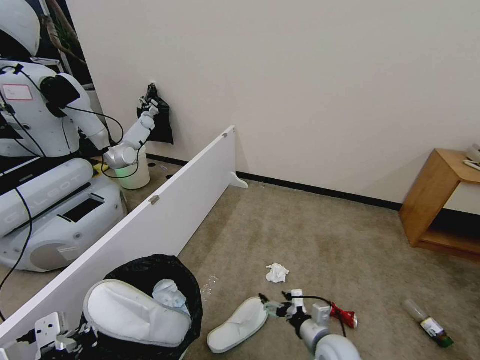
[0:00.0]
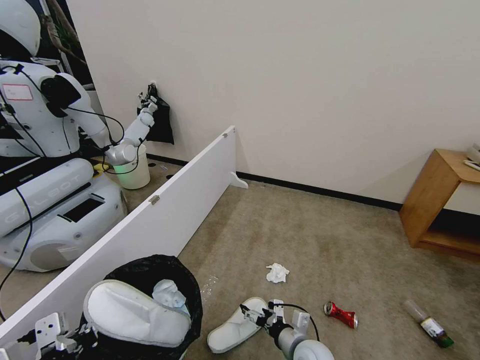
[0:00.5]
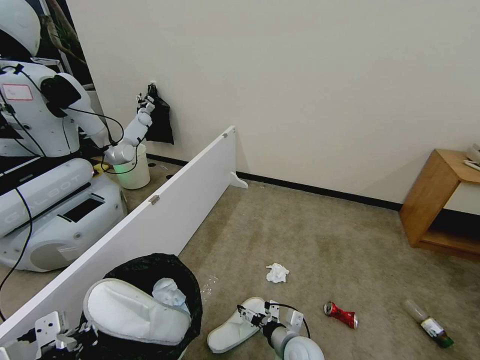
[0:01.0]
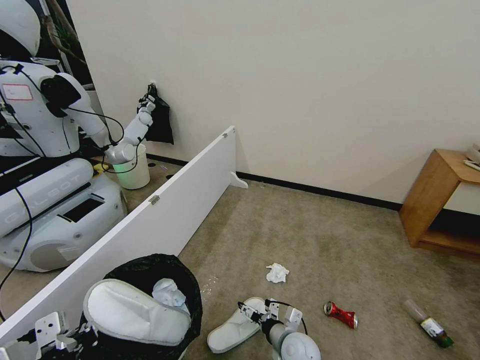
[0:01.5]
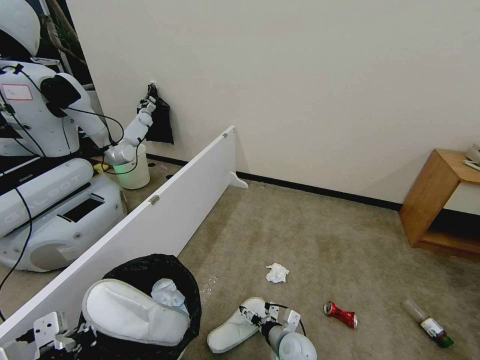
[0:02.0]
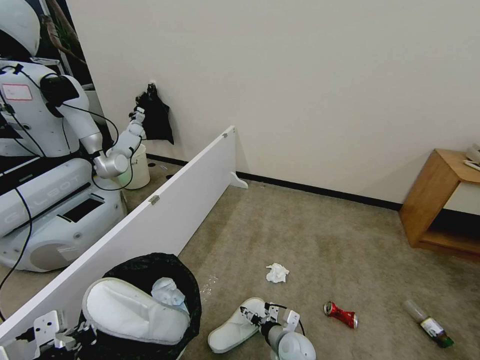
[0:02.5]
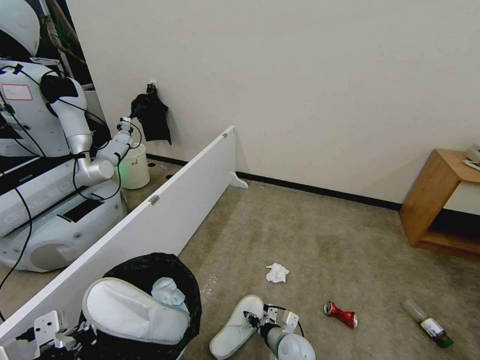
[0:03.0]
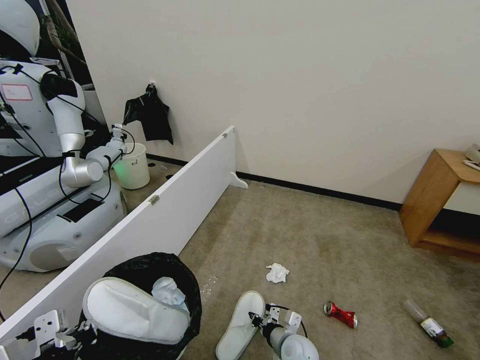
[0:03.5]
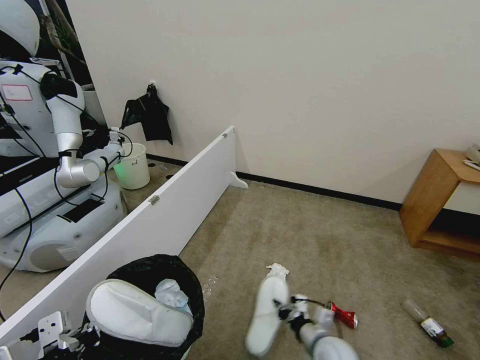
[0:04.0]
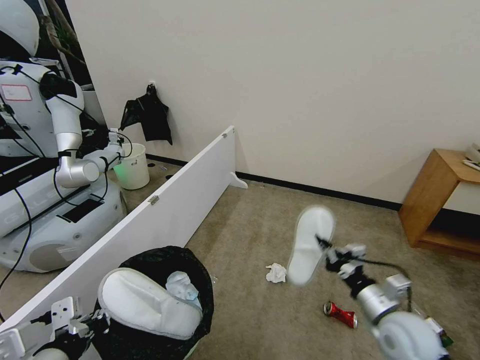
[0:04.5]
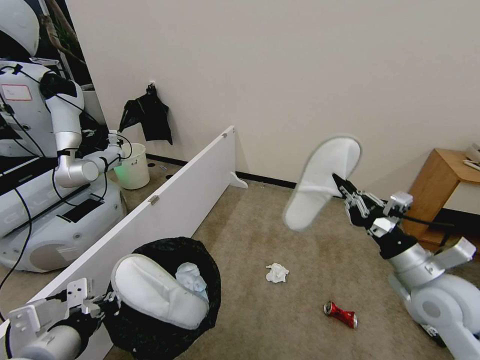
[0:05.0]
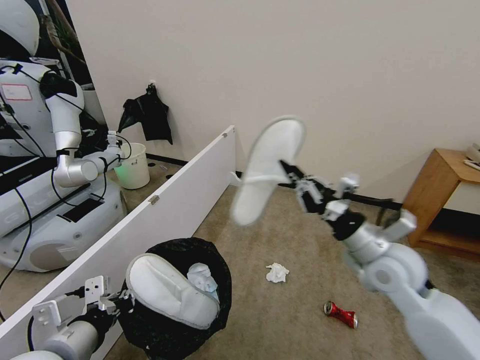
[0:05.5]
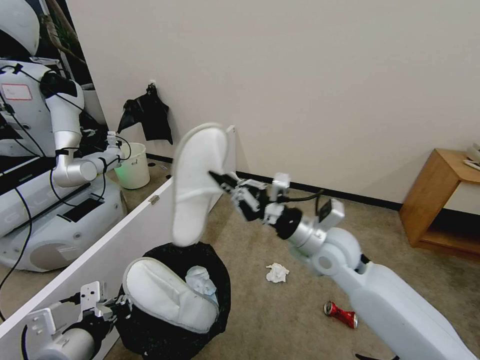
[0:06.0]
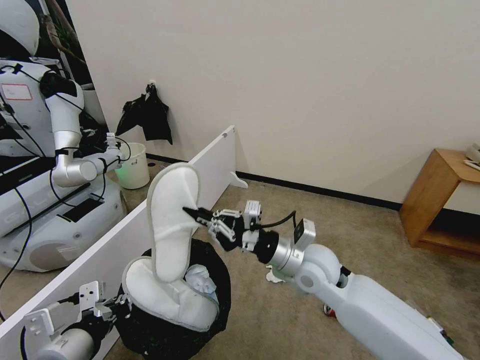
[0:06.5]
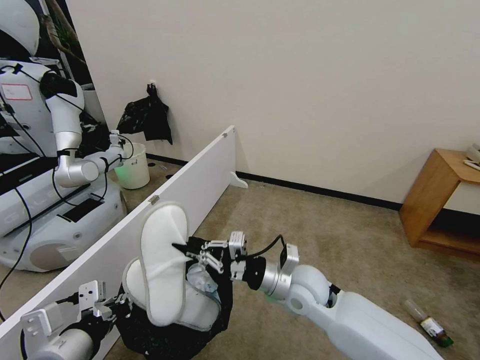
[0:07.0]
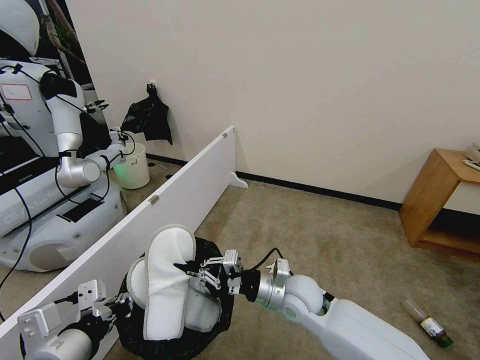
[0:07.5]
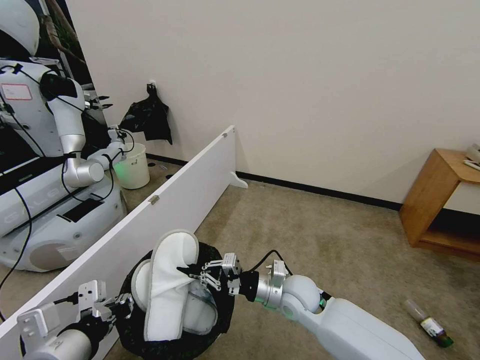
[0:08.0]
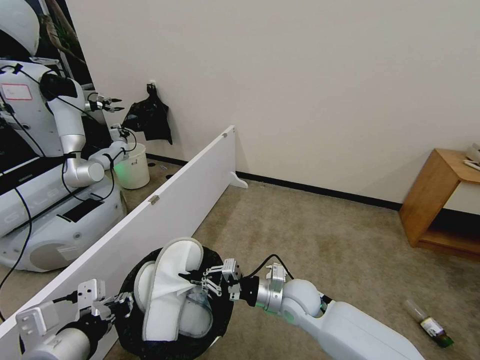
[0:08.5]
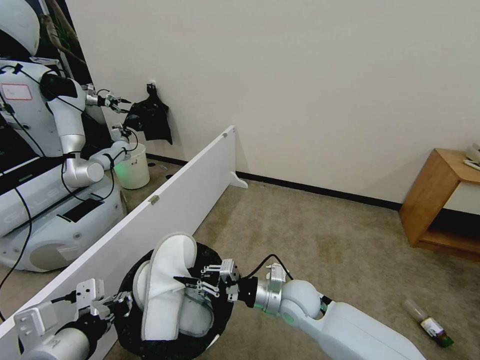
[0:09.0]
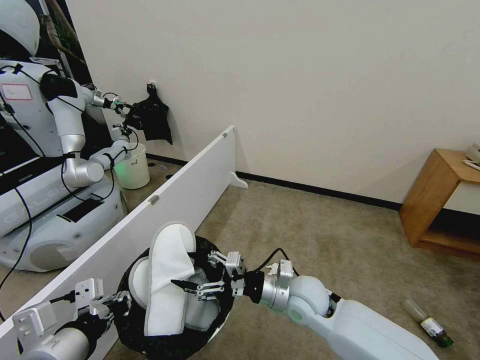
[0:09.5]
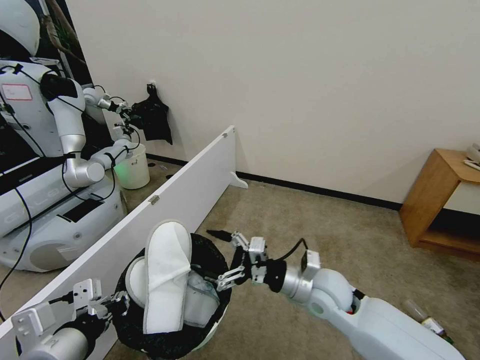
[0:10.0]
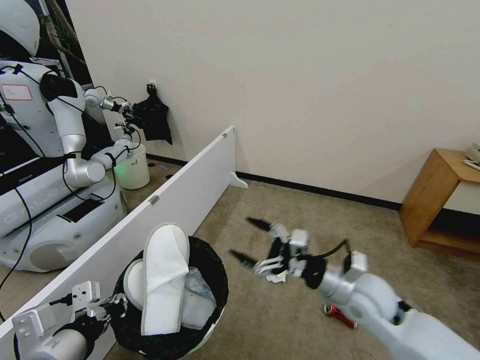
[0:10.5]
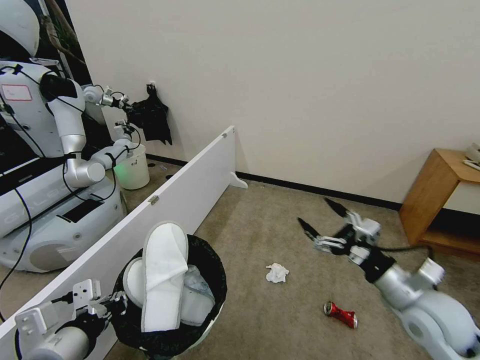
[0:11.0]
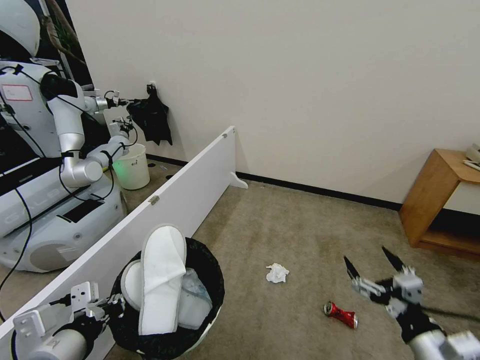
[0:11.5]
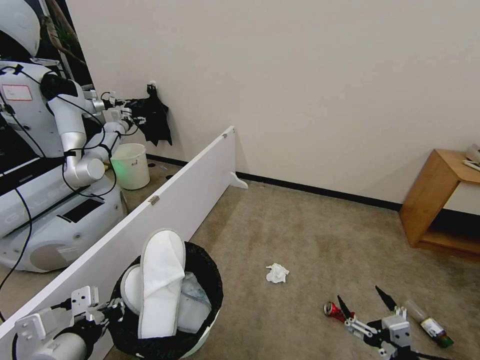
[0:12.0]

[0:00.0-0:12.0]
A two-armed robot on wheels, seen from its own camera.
Task of the whole recording: Pick up the trash bin, then pick up the garbage from the floor and place it into the trash bin.
0:00.0 to 0:02.0: The right gripper travels to the left and downward by about 10 cm.
0:02.0 to 0:04.0: The right gripper moves to the right and upward, about 10 cm, and closes its fingers.
0:04.0 to 0:06.0: The right gripper is displaced upward by about 30 cm.
0:06.0 to 0:08.0: The right gripper goes roughly 15 cm downward.
0:08.0 to 0:10.0: The right gripper heads upward, covering roughly 5 cm, and opens up.
0:10.0 to 0:12.0: The right gripper travels backward and to the right by about 30 cm.

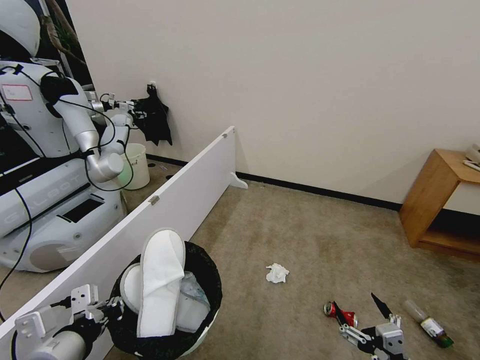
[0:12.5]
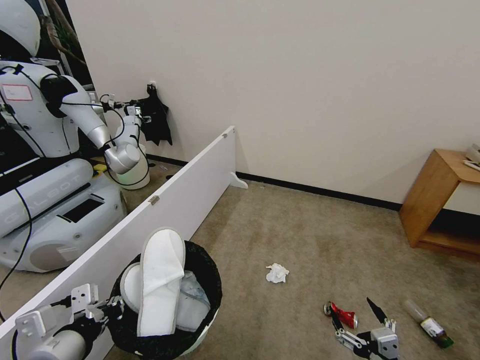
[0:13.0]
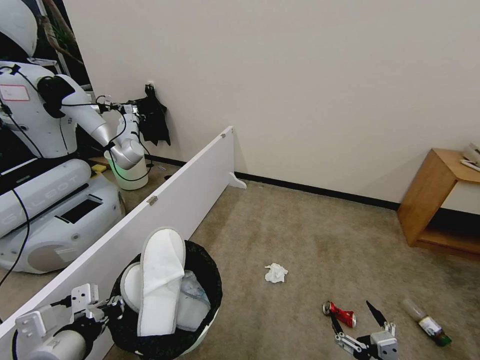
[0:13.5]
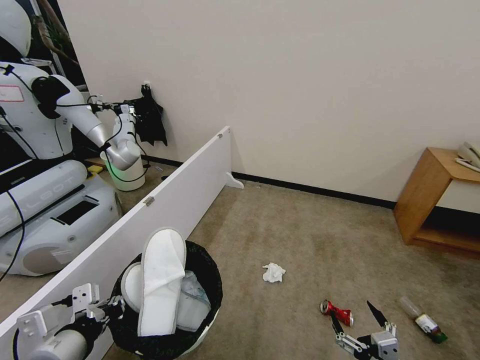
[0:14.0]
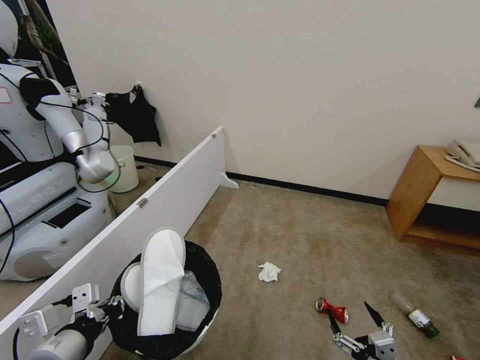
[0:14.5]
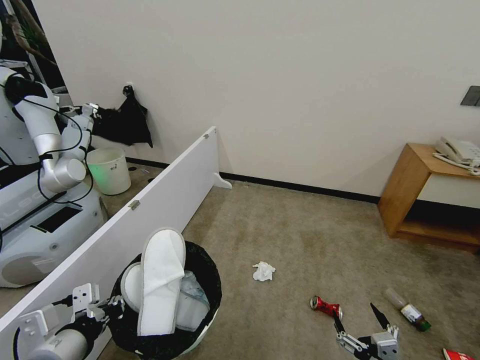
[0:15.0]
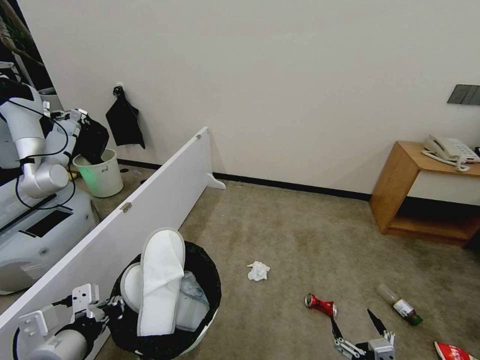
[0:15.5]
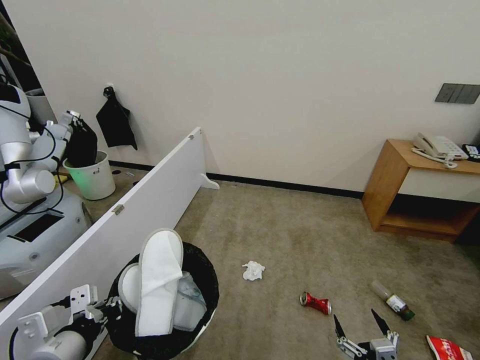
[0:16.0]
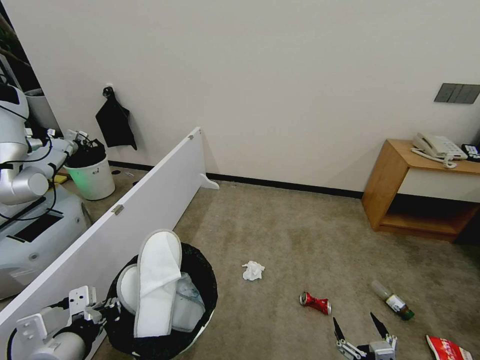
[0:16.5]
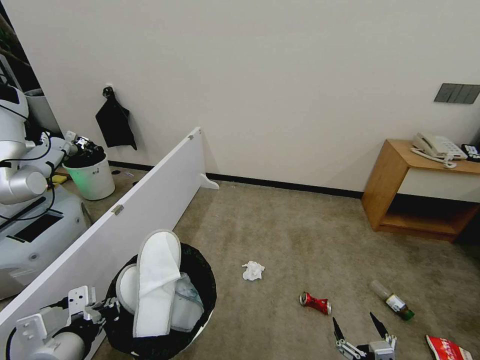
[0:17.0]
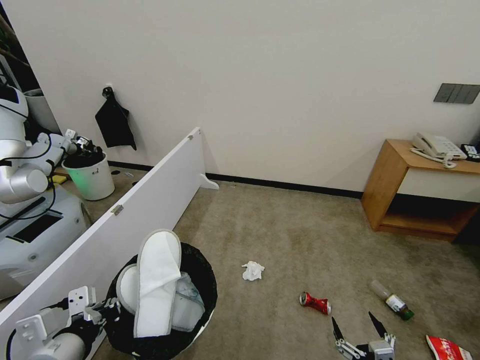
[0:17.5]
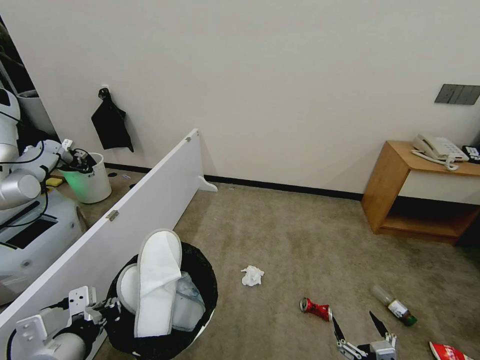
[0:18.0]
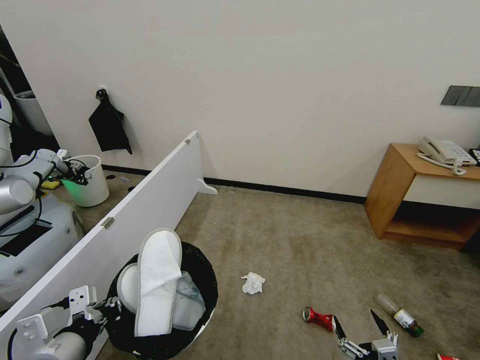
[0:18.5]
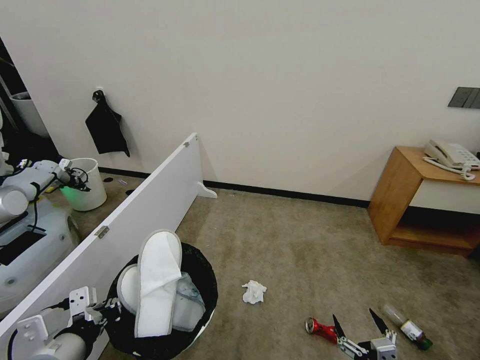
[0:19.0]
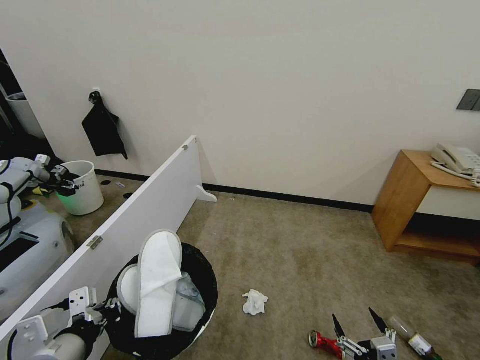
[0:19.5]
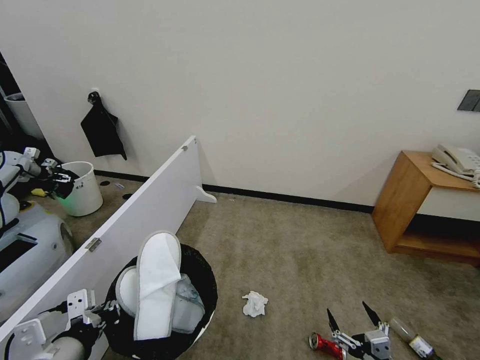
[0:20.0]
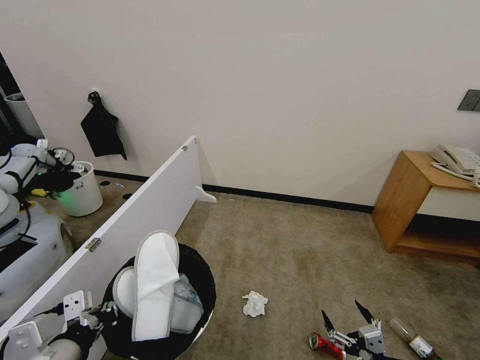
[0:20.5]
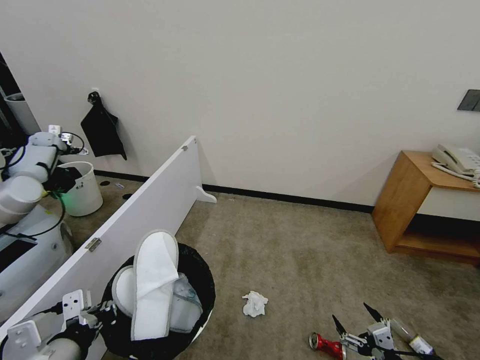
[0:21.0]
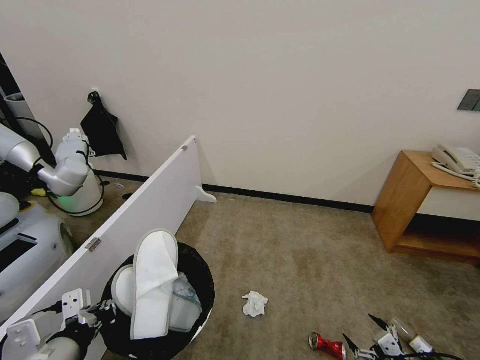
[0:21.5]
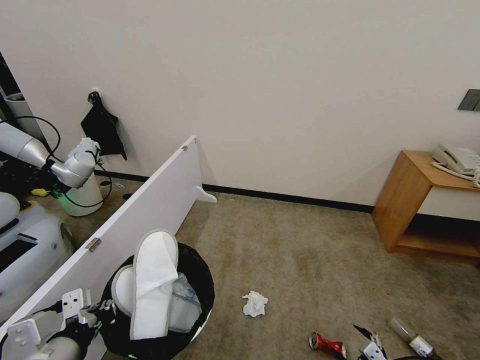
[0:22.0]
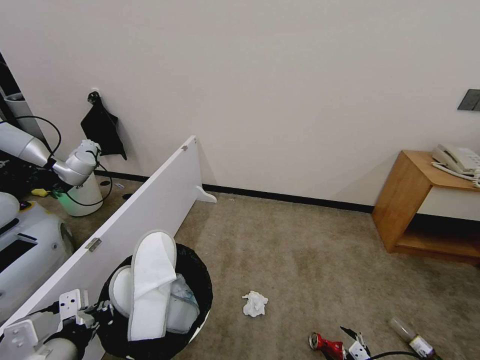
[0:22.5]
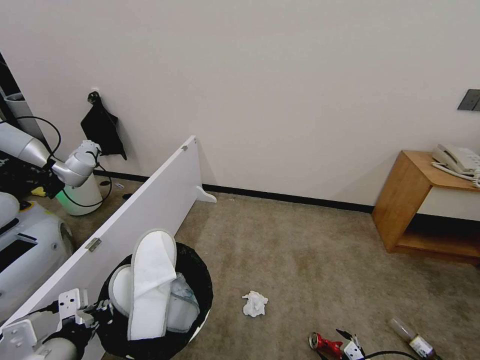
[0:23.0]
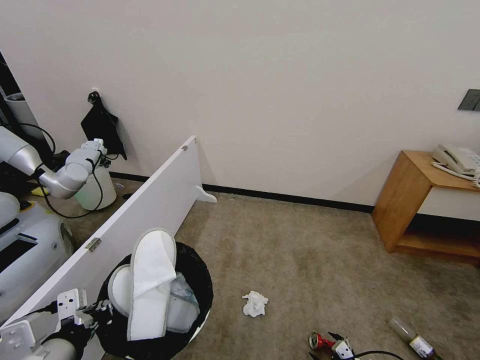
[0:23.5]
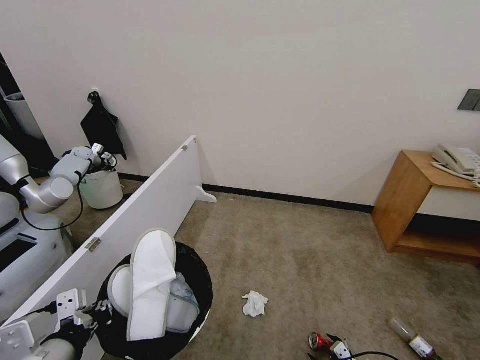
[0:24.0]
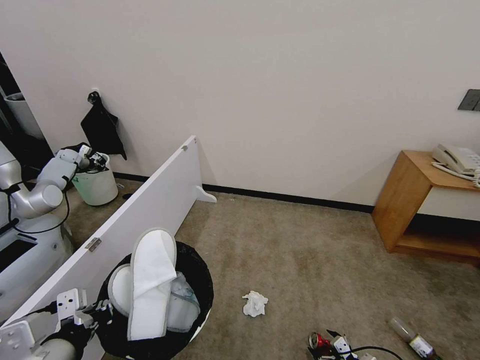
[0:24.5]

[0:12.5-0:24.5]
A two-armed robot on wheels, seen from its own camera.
Task of the whole recording: Pick up the trash bin, then pick up the garbage from the floor and place it into the trash bin.
0:16.5 to 0:18.5: Both grippers stay about where they are.
0:20.5 to 0:22.5: The right gripper moves to the right, downward and forward, approximately 15 cm.
0:22.5 to 0:24.5: The right gripper moves downward, approximately 5 cm.

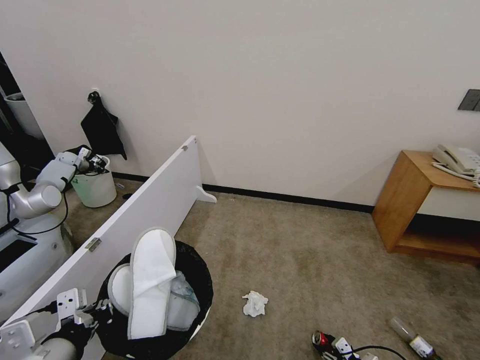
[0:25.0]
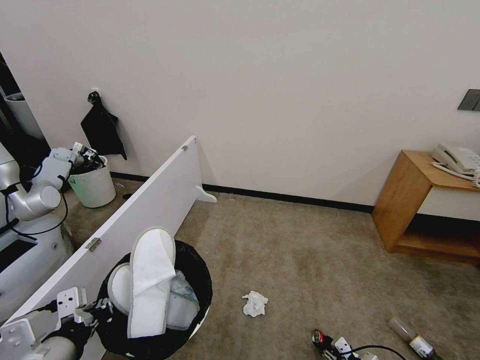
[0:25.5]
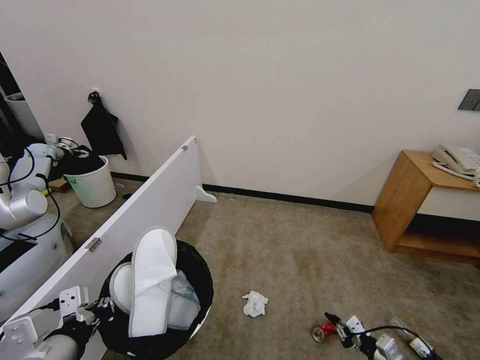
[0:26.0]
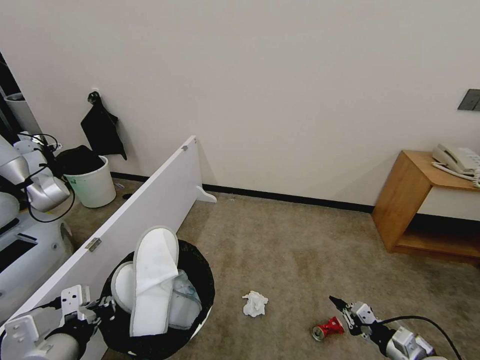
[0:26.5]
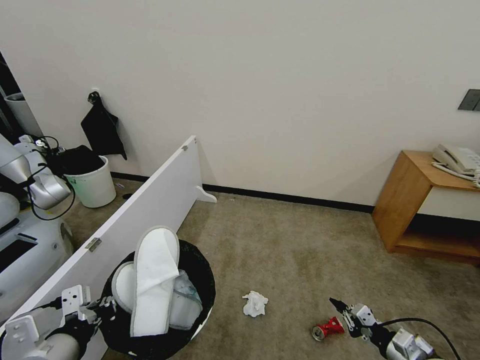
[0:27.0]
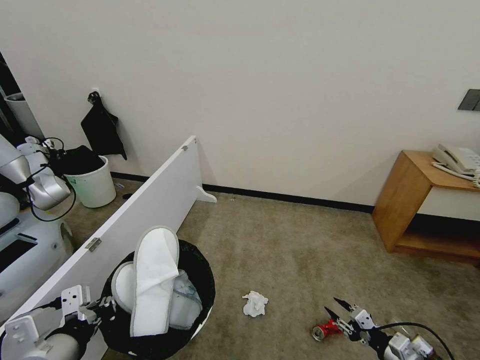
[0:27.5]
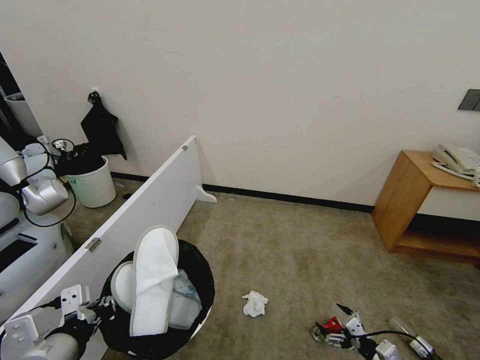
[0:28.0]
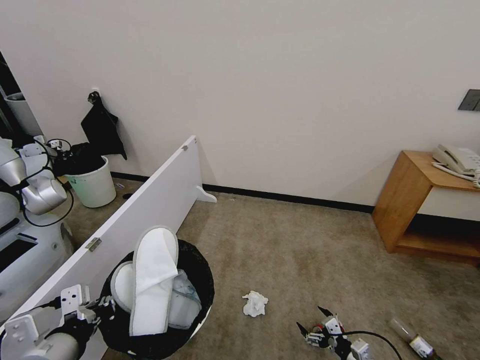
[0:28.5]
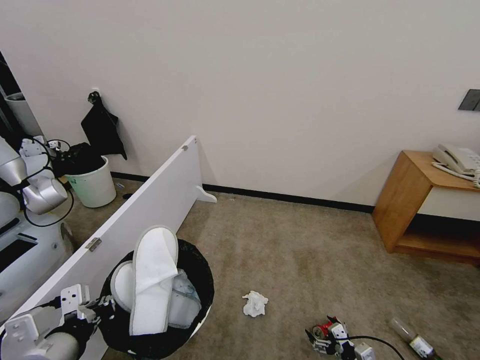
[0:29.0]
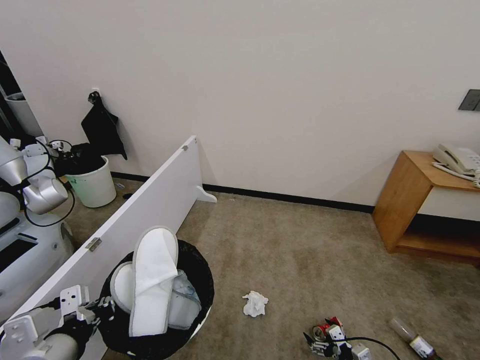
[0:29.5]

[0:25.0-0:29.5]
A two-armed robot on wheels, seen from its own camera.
Task of the whole recording: Pick up the trash bin, then pick up the garbage from the floor and place it into the trash bin.
0:25.0 to 0:27.0: The right gripper shifts approximately 15 cm upward, and closes its fingers.
0:27.0 to 0:29.5: The right gripper moves downward and to the left, some 15 cm, and opens.
